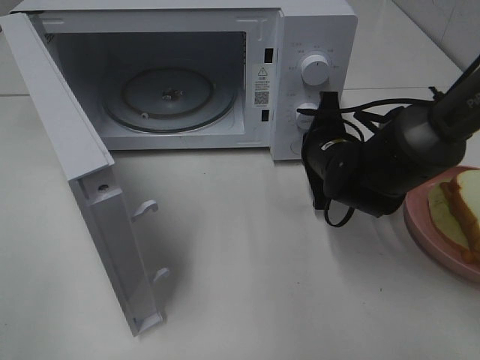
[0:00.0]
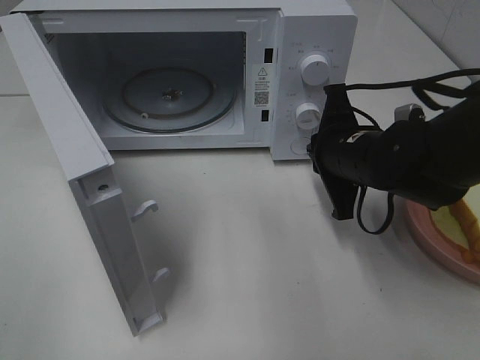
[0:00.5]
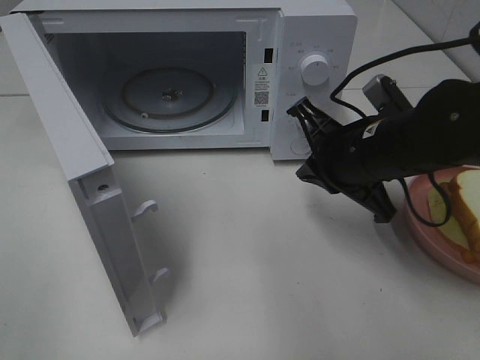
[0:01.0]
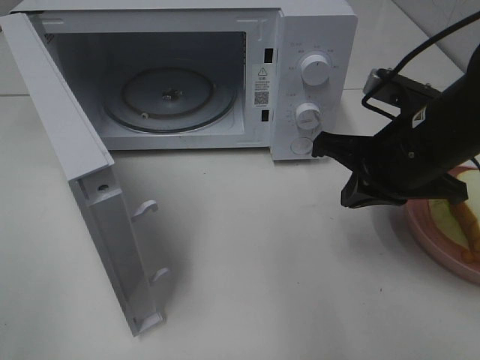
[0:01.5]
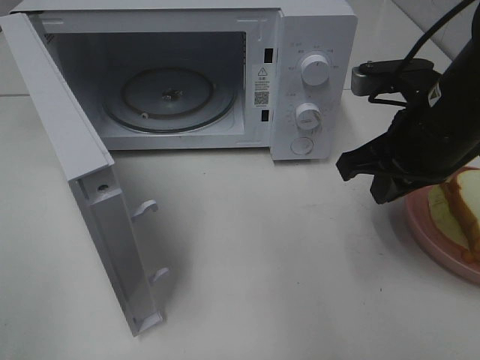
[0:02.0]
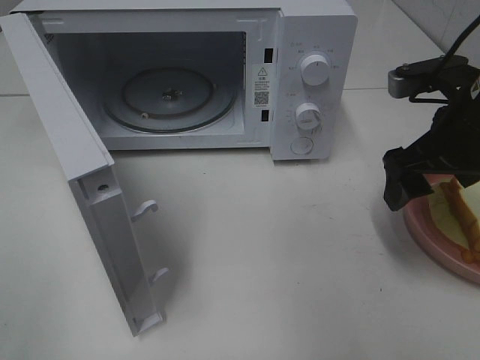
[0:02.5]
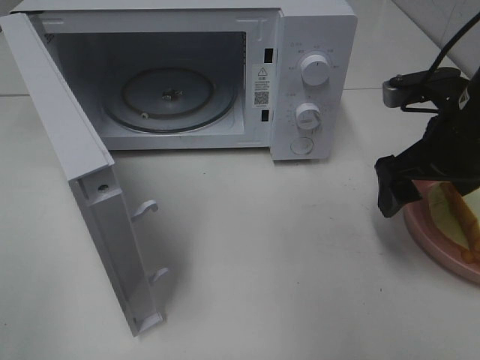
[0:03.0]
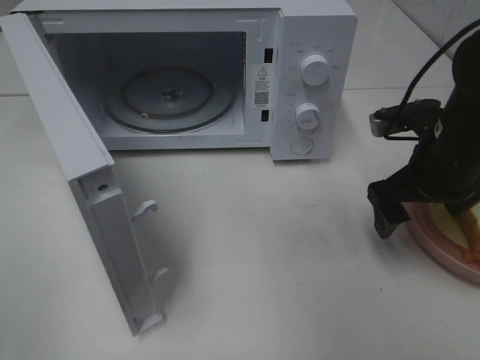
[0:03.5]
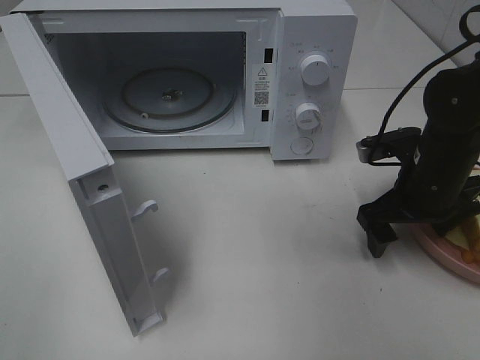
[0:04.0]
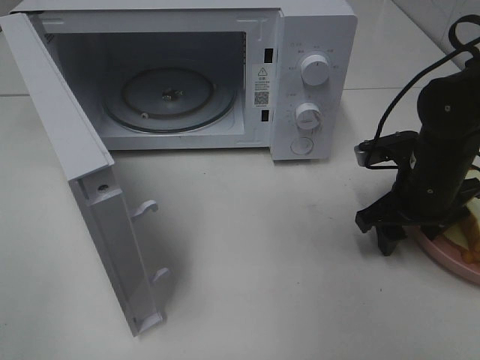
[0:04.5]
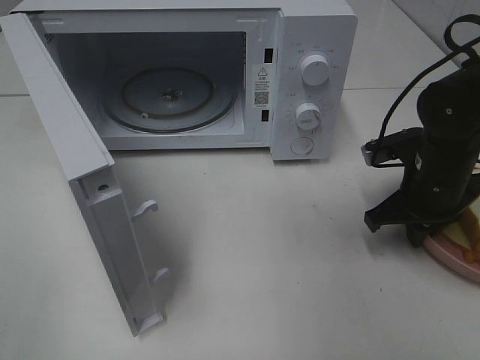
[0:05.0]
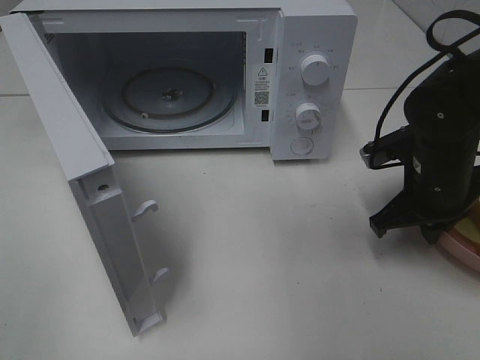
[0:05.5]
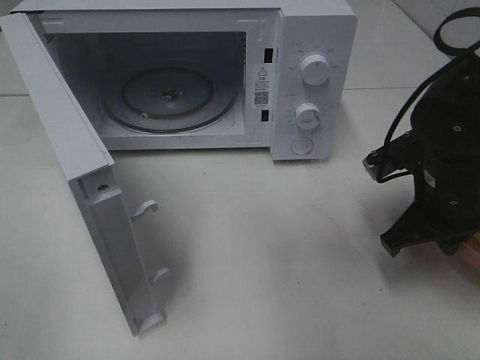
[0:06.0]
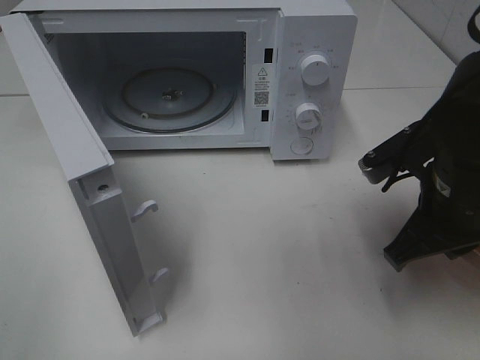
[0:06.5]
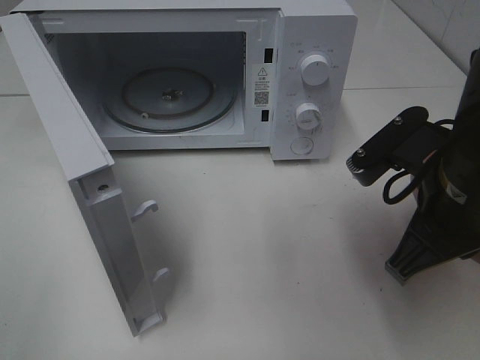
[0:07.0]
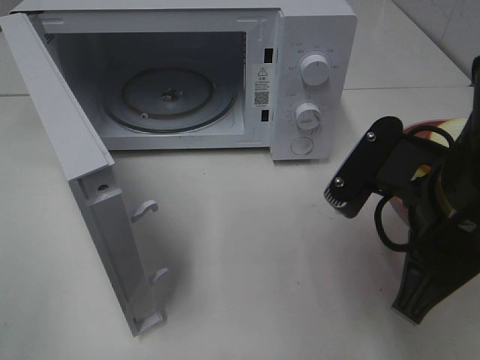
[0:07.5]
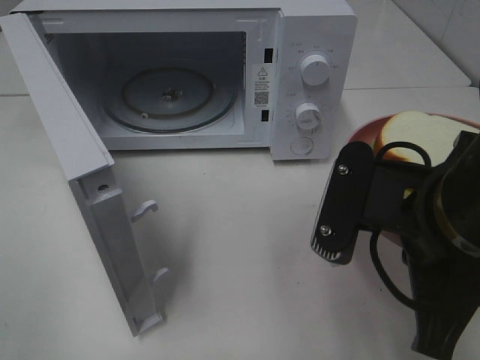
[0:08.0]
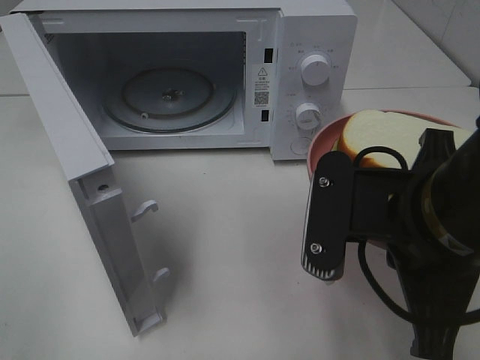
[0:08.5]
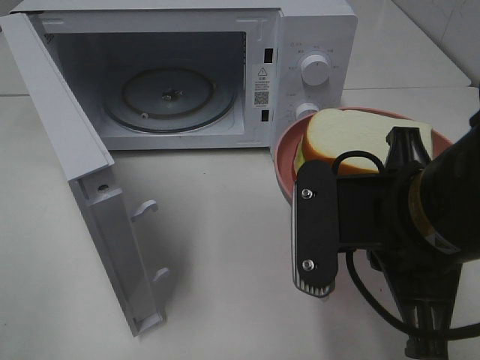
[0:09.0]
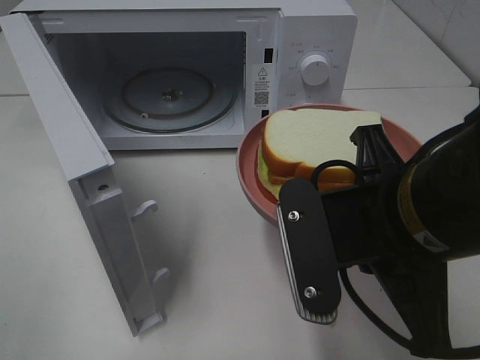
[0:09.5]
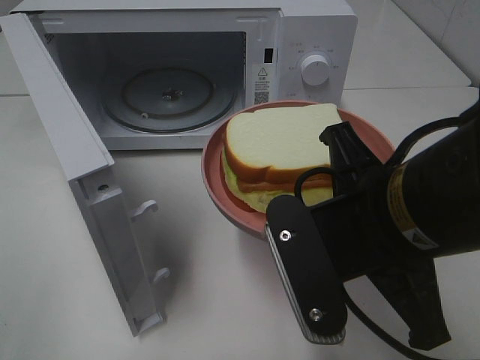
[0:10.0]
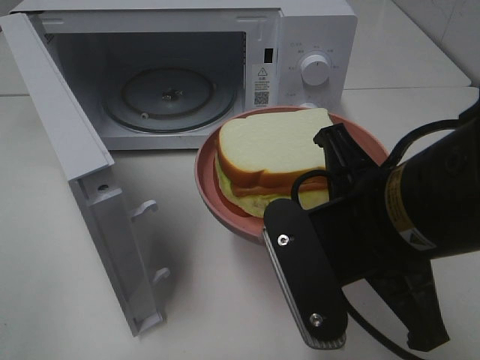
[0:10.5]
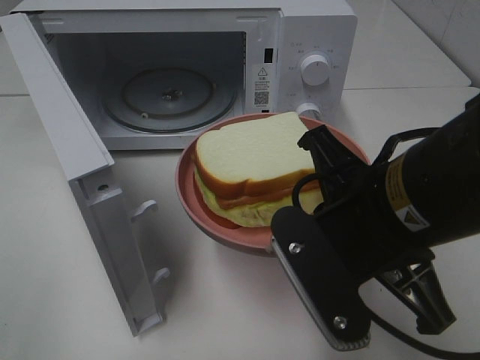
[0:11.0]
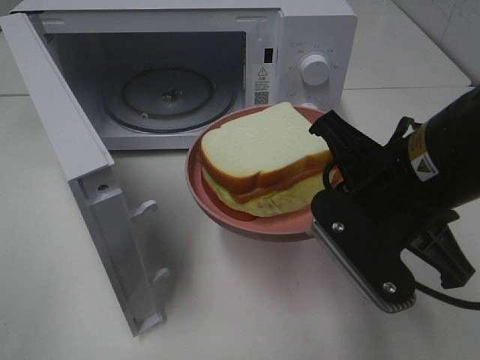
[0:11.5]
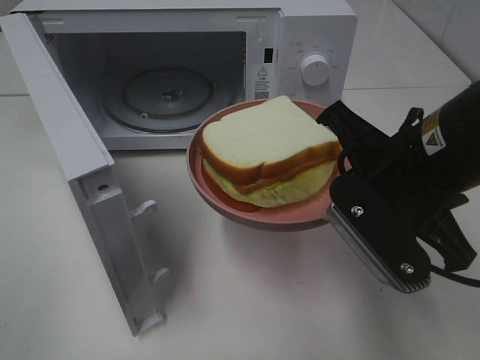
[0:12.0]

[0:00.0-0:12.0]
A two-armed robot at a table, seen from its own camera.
Task of the whole recording: Heat Sandwich.
Step, 0.5 to 5.0 s: Right hand: grab the plate with the sandwich.
0.0 to 2.0 s: The right gripper is displaced upward and backward by roughly 15 cm.
2.0 to 4.0 s: The right gripper is displaced downward by some 10 cm, and opens.
4.0 to 6.0 s: The right gripper shifts by about 5 cm, and closes.
6.0 to 8.0 s: The right gripper travels backward, upward and to the left by about 15 cm.
10.0 to 12.0 s: The right gripper shifts about 5 cm forward.

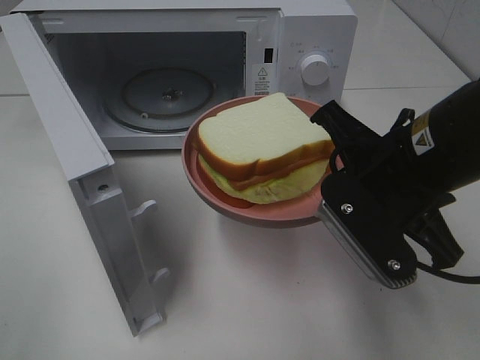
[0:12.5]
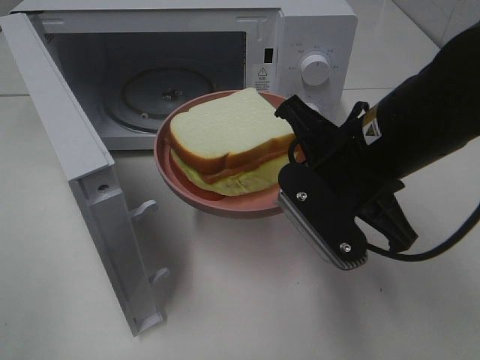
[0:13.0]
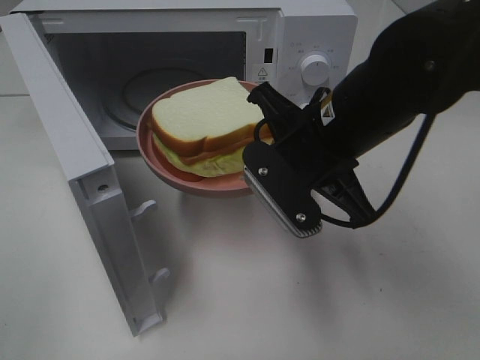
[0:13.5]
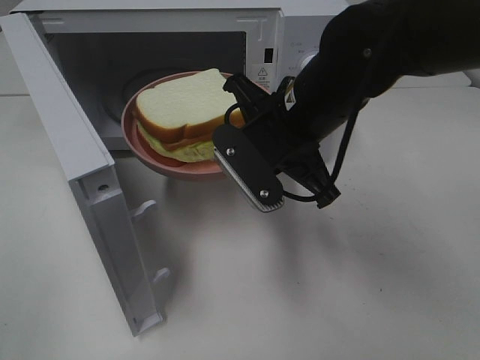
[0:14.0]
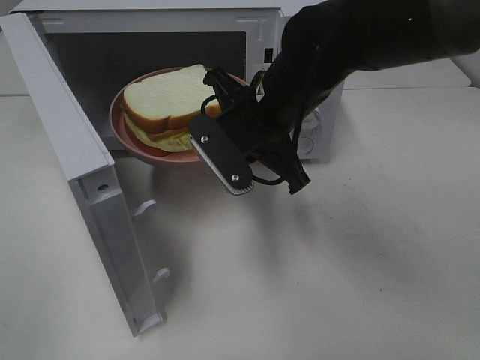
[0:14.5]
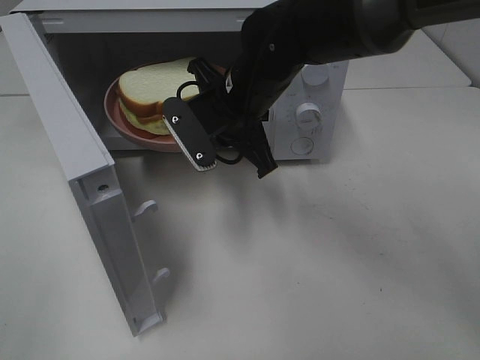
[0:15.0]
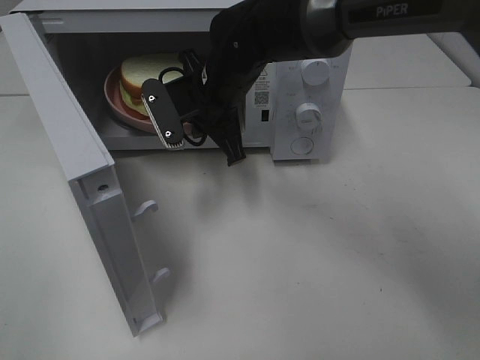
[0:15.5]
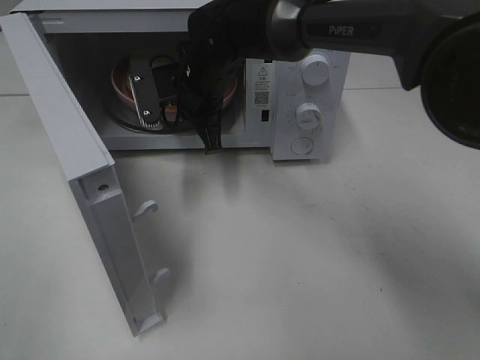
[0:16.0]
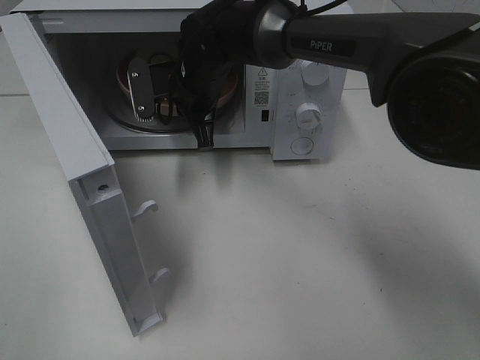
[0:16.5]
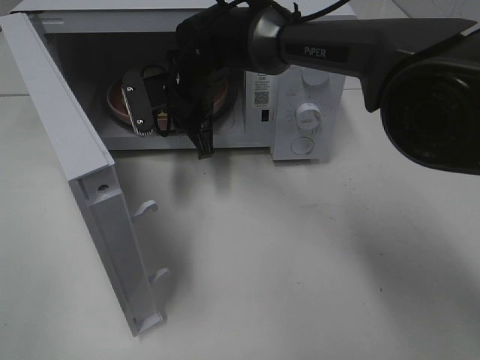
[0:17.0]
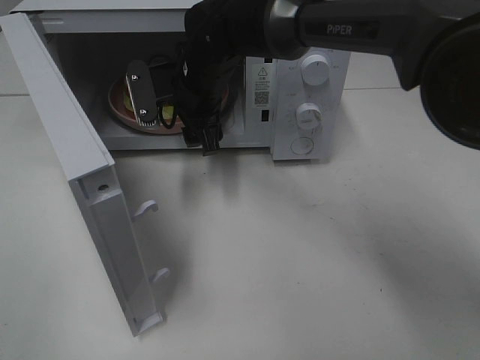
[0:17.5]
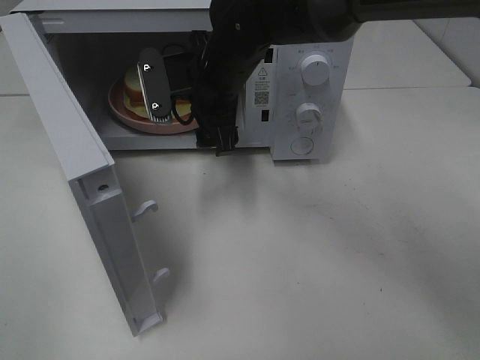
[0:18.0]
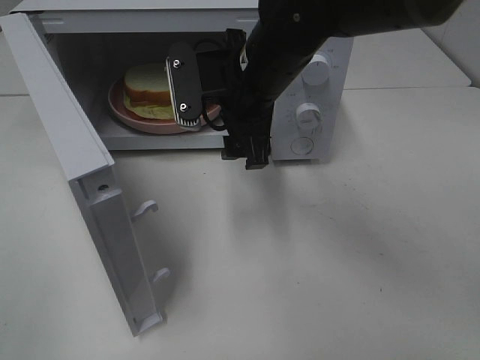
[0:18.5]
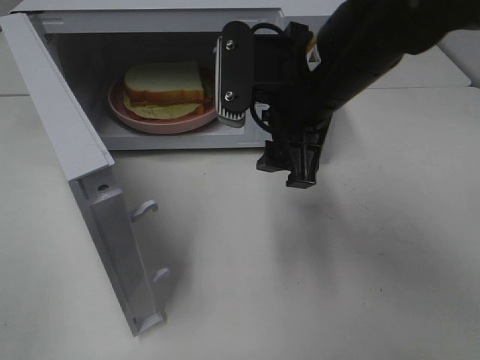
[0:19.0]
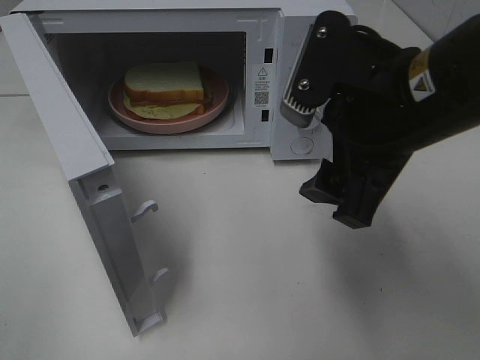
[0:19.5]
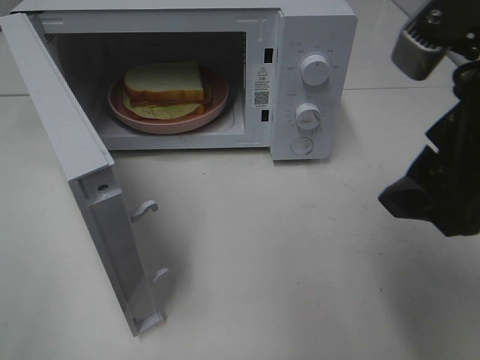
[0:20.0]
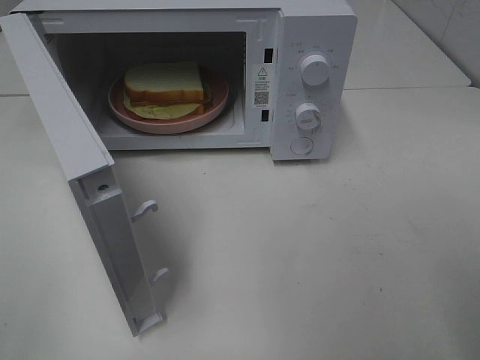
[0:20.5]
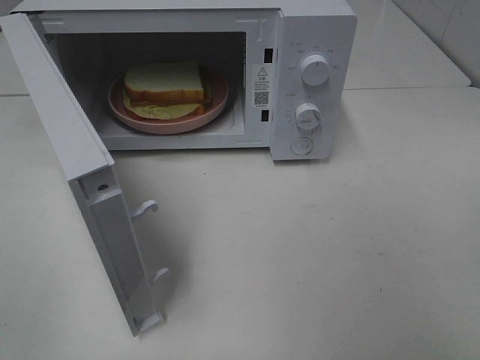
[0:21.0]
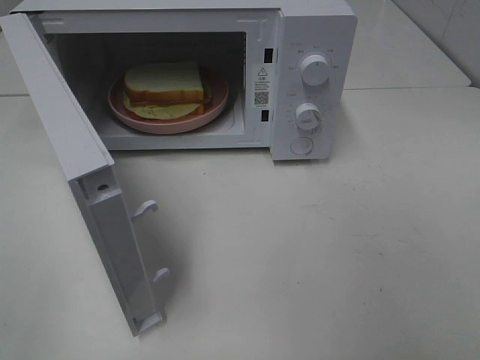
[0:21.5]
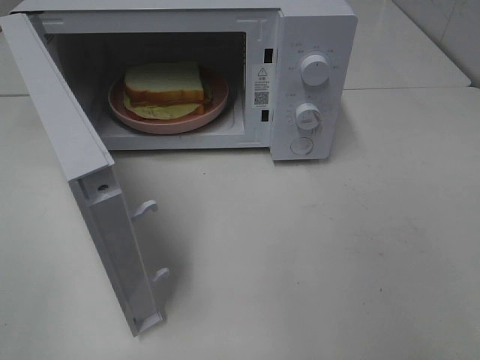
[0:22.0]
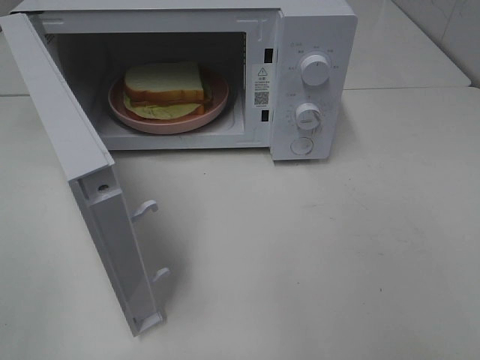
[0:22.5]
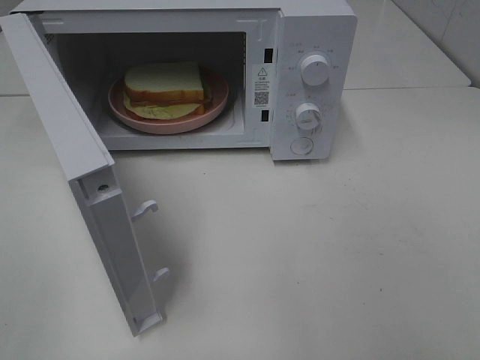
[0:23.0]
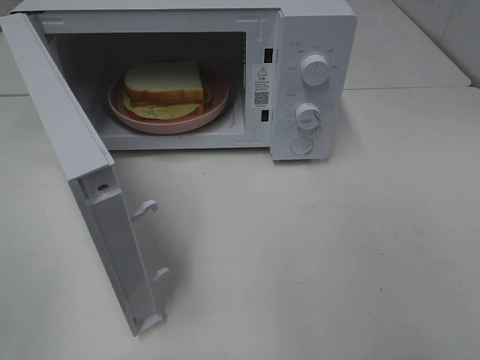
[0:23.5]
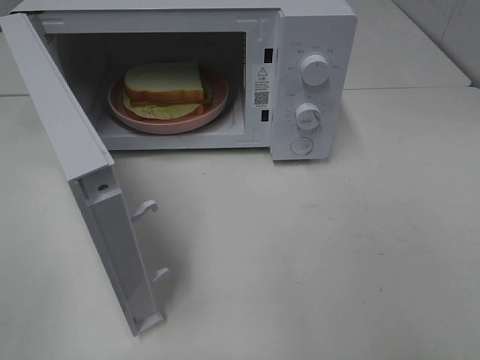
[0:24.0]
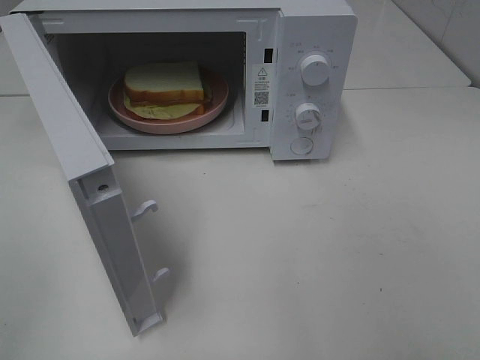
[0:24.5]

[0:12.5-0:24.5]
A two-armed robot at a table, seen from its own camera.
Task of the whole recording: Heat Sandwich.
Step, 12.5 to 18.0 s: Right hand: place the plate in the microwave.
12.5 to 14.5 s: The right gripper moves forward and to the left, approximately 15 cm.
14.5 to 16.5 s: The right gripper moves forward and to the left, approximately 15 cm.
16.5 to 18.5 s: The right gripper shifts roughly 15 cm backward, to the right and upward, and opens up.
18.5 to 20.5 s: The right gripper travels backward, to the right and upward by about 30 cm.
20.5 to 22.5 s: The right gripper goes approximately 15 cm backward and to the right.

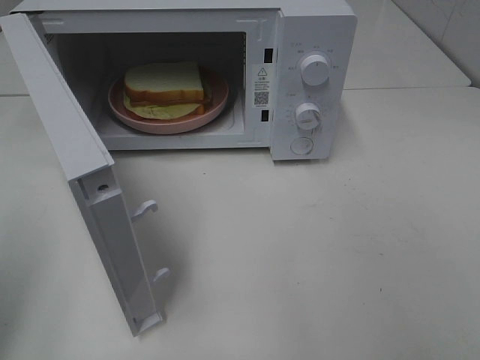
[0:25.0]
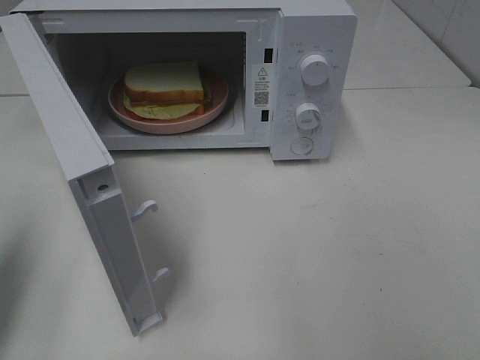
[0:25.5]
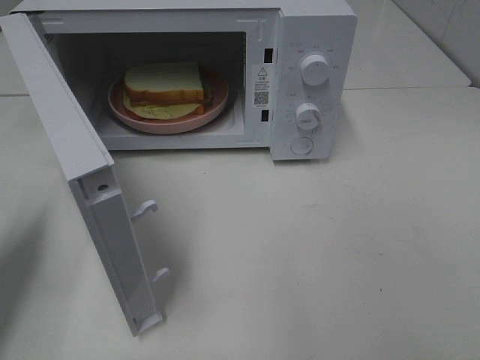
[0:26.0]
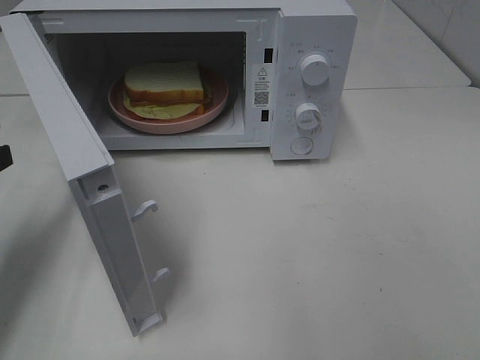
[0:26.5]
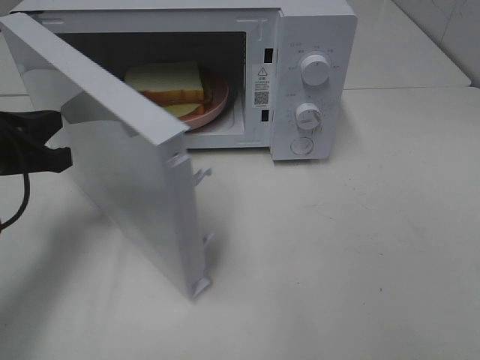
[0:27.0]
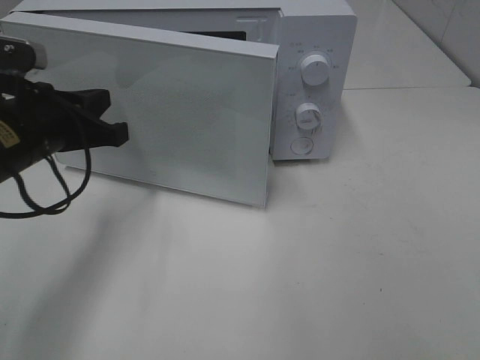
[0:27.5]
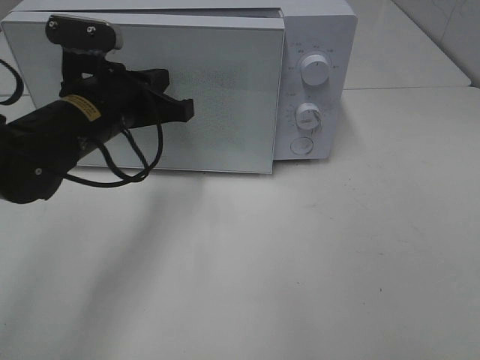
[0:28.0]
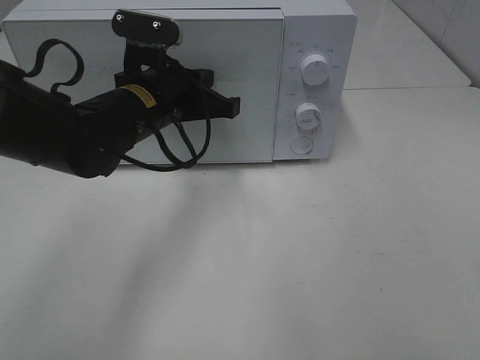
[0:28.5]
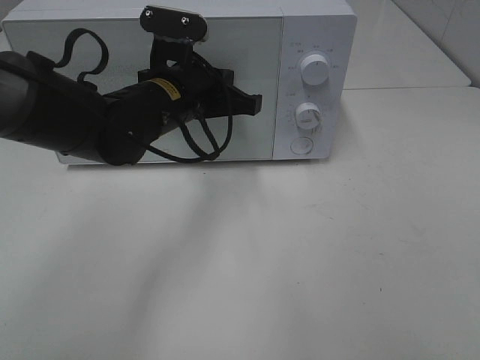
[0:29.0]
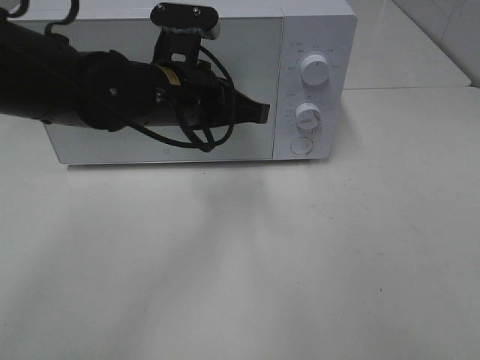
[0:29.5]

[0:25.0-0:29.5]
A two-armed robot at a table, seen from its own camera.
Task of the whole recording: Heat Sandwich.
25.0 to 27.0 s: The left gripper heads forward, downward and to the right, covering about 20 cm.
27.0 to 29.5 s: The left gripper moves to the right, about 20 cm.
